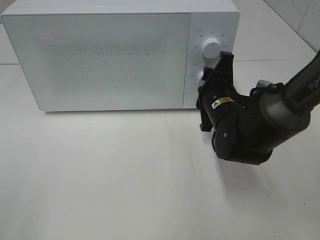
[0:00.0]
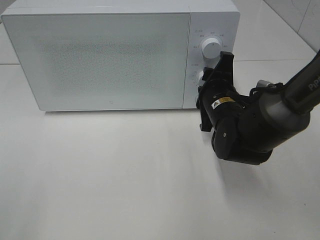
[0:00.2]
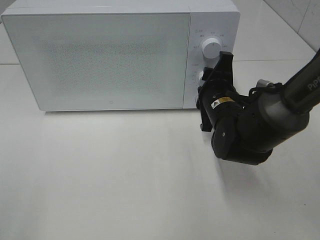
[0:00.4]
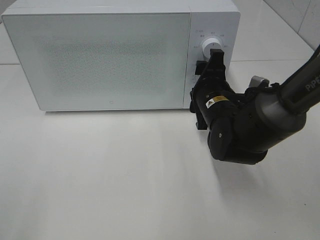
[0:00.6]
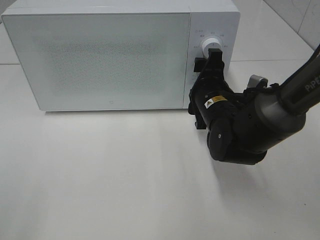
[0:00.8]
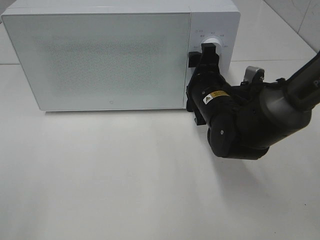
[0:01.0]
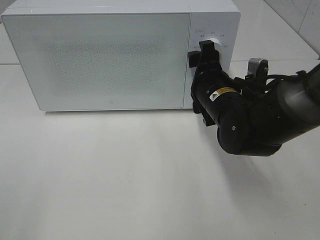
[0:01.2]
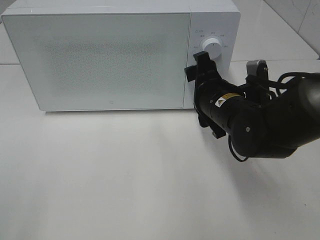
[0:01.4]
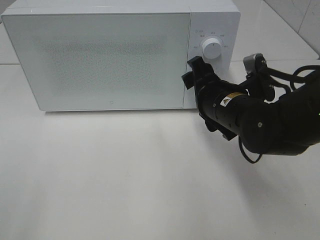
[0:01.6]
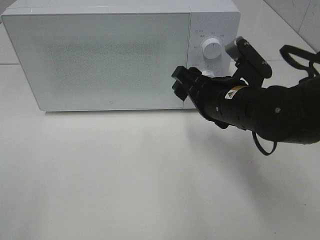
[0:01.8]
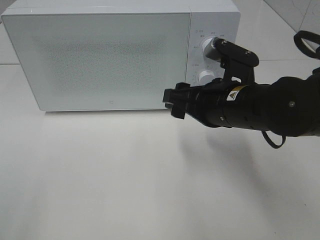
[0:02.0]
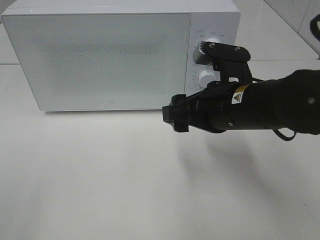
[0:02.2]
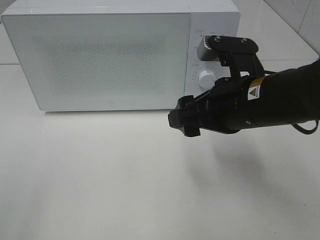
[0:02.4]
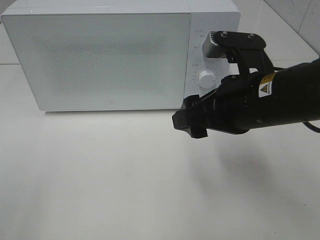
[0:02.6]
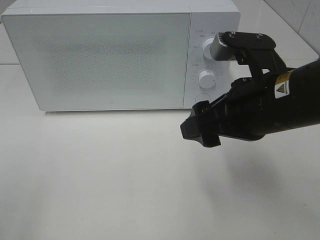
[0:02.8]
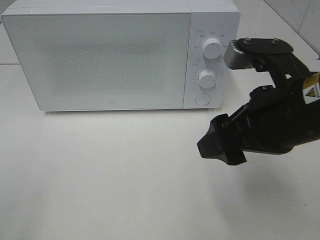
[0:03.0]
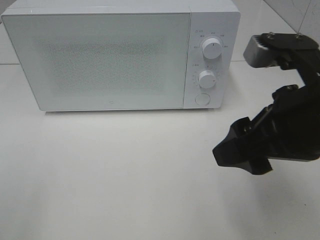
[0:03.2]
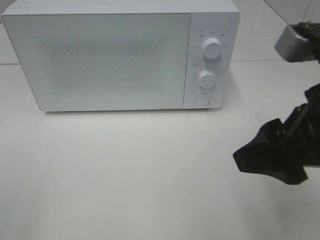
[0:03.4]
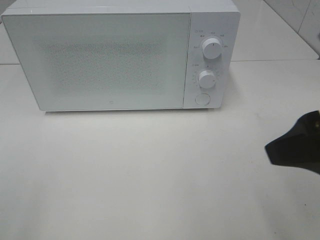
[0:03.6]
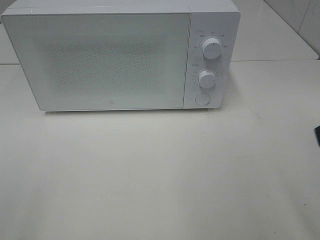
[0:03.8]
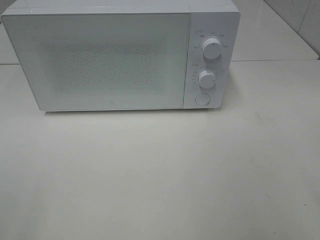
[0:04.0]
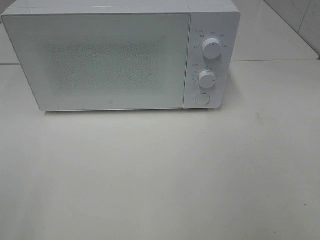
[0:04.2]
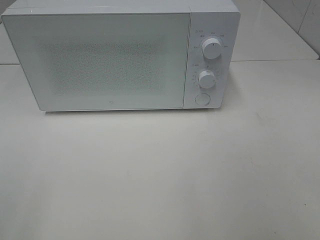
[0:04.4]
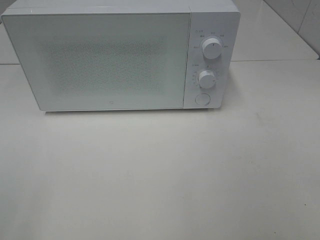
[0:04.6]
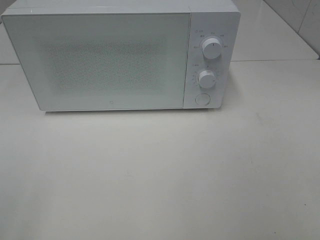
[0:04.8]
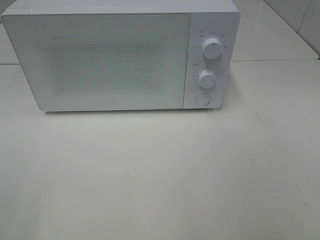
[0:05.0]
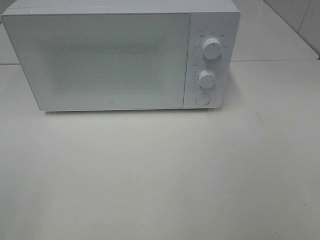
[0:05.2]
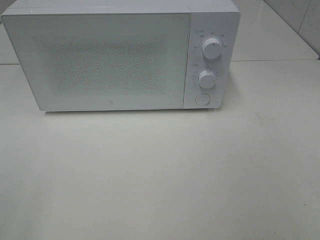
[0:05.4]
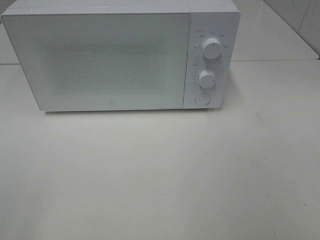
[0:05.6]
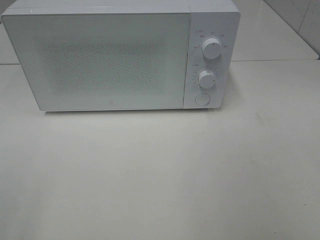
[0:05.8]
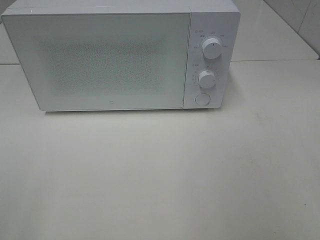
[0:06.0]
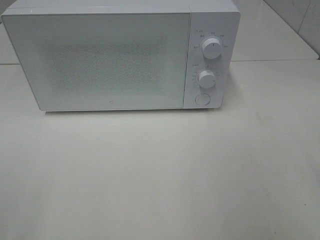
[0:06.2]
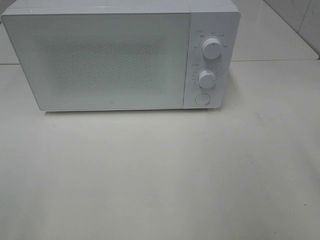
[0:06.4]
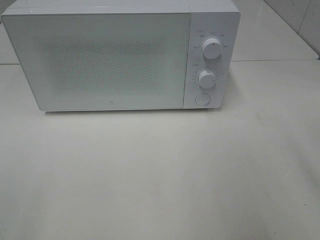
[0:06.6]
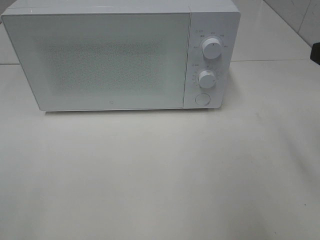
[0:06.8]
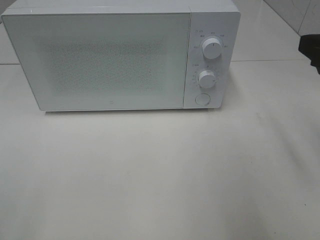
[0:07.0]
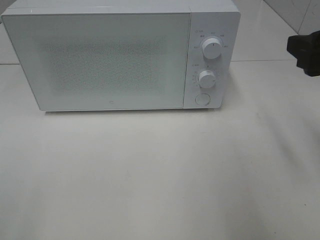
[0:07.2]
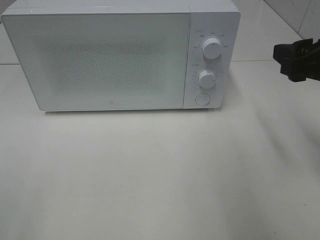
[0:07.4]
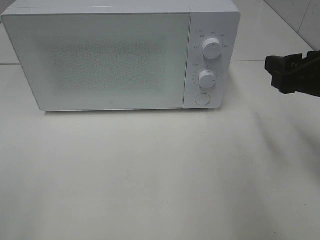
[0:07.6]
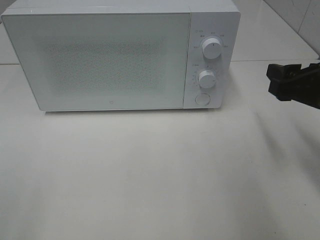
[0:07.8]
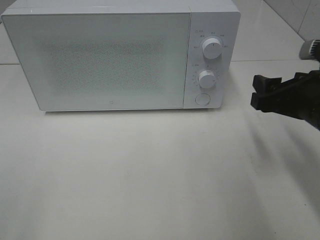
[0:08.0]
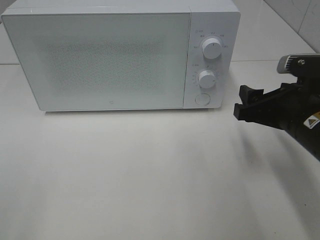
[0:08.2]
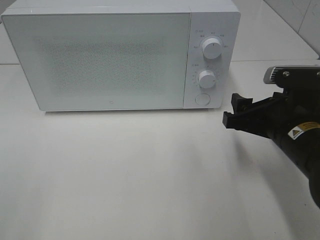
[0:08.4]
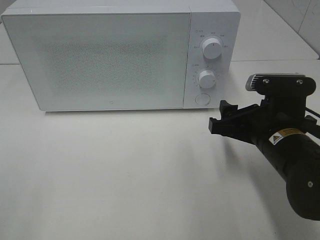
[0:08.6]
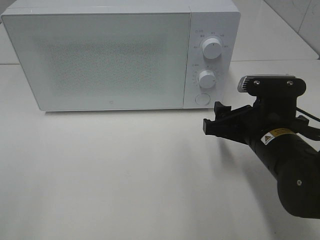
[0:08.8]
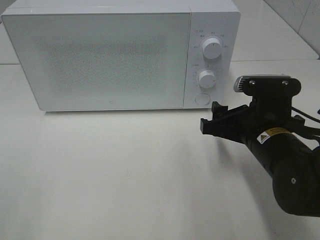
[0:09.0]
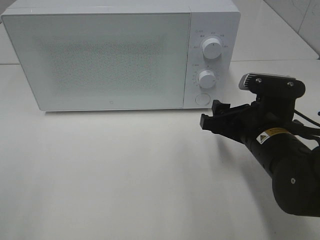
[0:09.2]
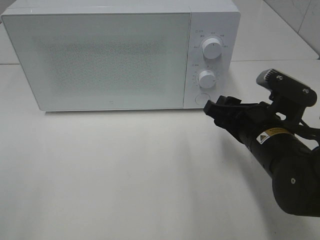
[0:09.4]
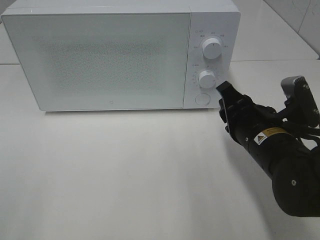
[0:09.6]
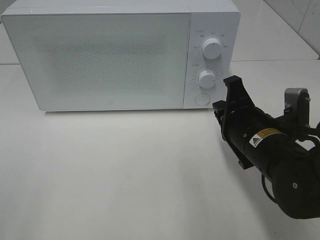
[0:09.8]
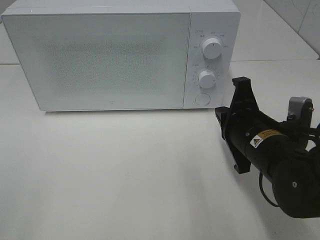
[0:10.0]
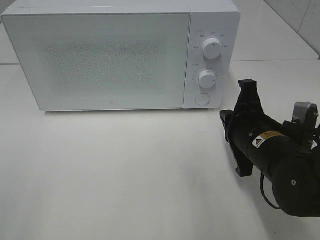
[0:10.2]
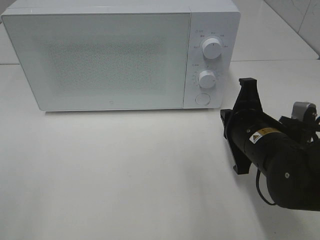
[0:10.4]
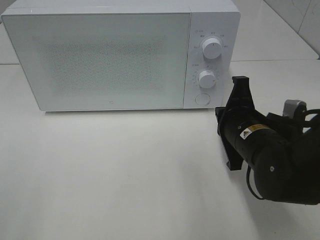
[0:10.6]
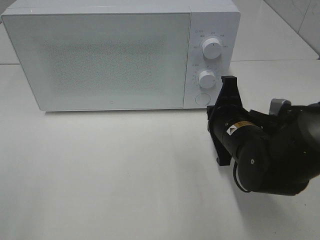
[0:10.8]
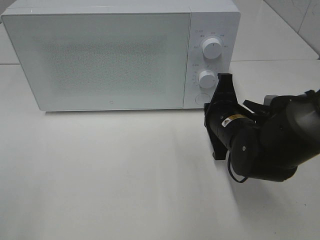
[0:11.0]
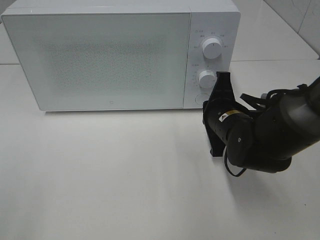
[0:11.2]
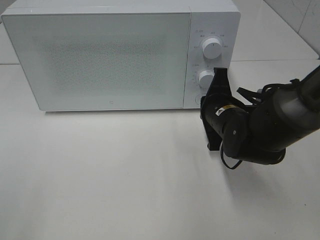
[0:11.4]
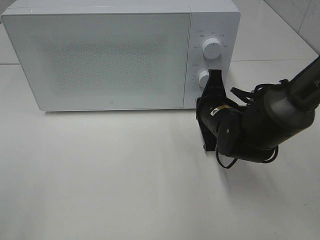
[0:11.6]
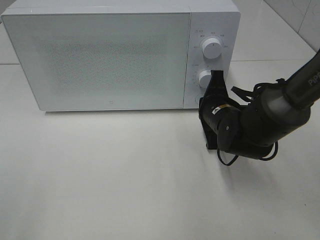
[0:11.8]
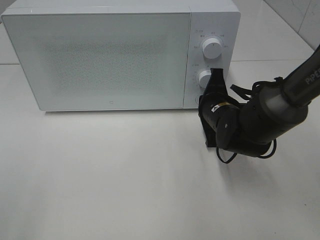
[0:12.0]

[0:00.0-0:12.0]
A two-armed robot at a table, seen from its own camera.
Task of the whole recording: Heat the burger.
0:00.0 to 0:01.6: The right gripper changes place by approximately 5 cm, and opens up.
0:01.6 to 0:03.0: The right gripper goes roughly 15 cm backward and upward.
0:03.0 to 0:04.4: The right gripper moves backward and to the right, roughly 20 cm.
0:06.0 to 0:07.6: The right gripper shifts approximately 20 cm forward and downward.
0:07.6 to 0:09.0: The right gripper is displaced downward and to the left by about 15 cm.
0:09.0 to 0:10.4: The right gripper closes up.
0:10.4 to 0:12.0: The right gripper travels forward by roughly 10 cm.

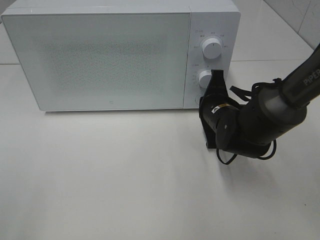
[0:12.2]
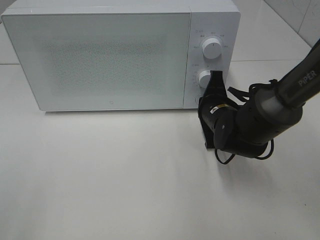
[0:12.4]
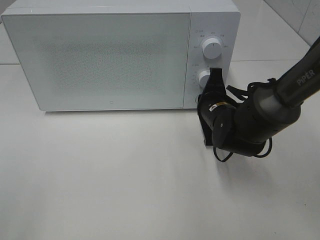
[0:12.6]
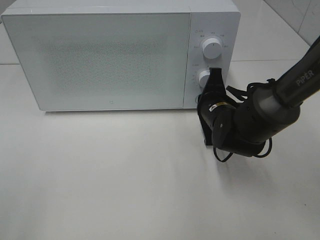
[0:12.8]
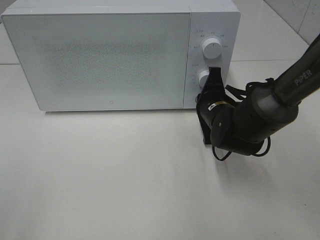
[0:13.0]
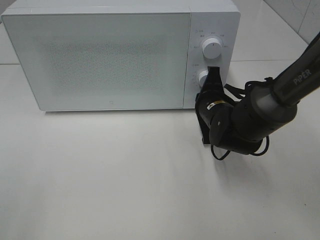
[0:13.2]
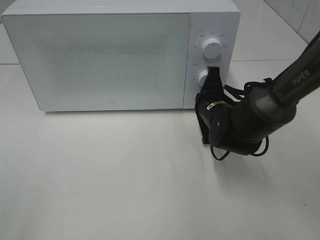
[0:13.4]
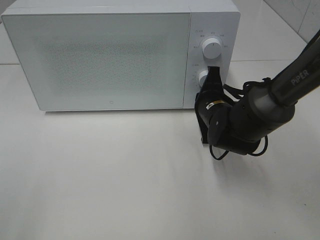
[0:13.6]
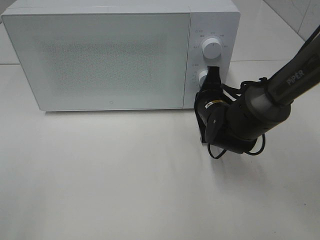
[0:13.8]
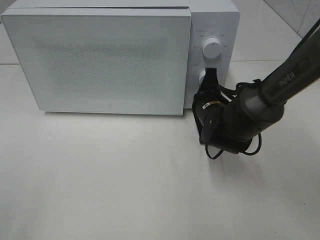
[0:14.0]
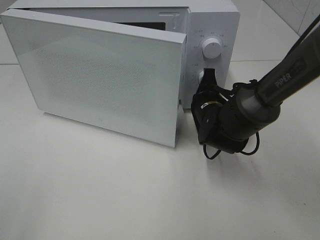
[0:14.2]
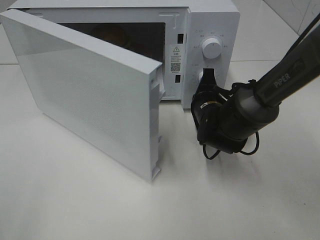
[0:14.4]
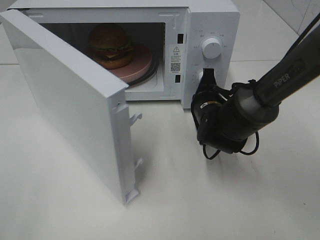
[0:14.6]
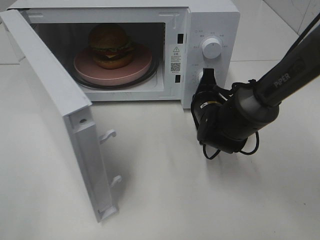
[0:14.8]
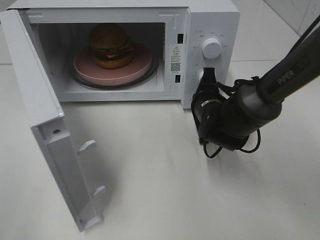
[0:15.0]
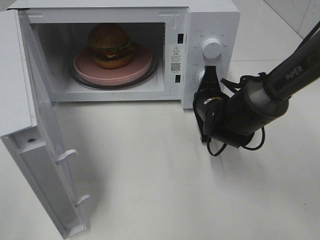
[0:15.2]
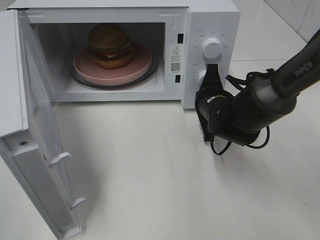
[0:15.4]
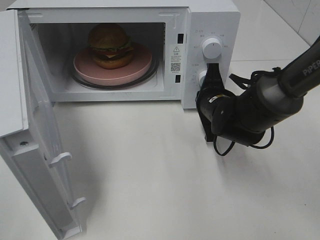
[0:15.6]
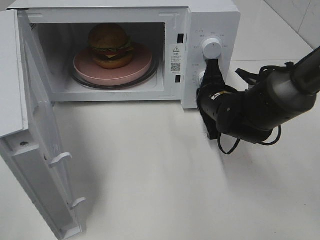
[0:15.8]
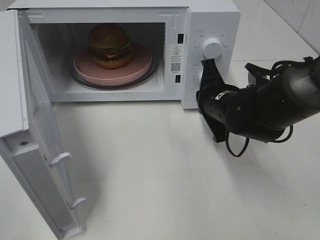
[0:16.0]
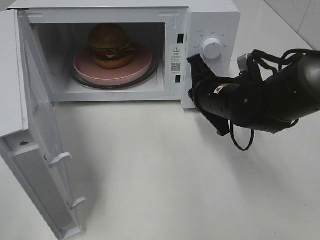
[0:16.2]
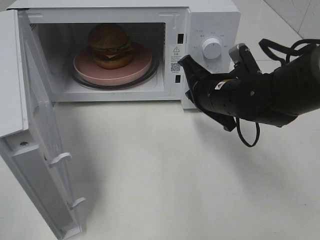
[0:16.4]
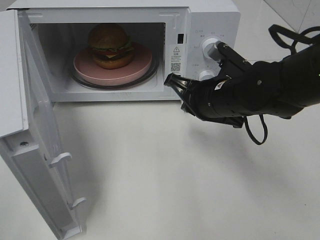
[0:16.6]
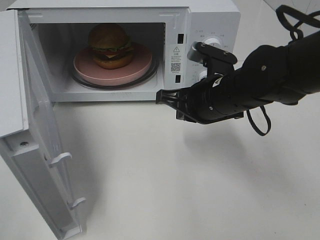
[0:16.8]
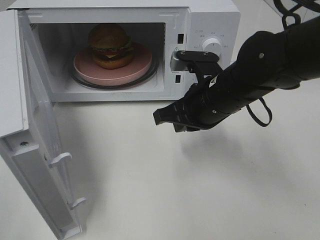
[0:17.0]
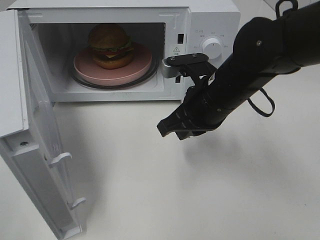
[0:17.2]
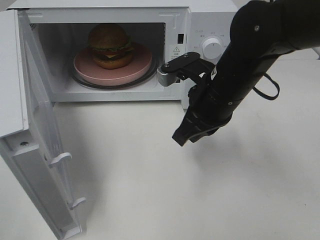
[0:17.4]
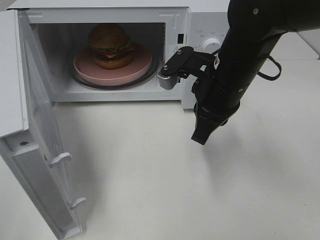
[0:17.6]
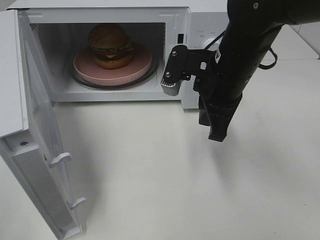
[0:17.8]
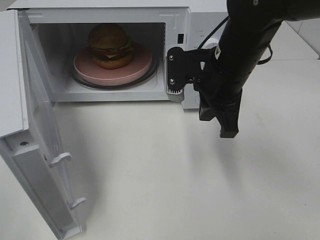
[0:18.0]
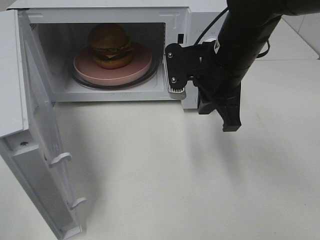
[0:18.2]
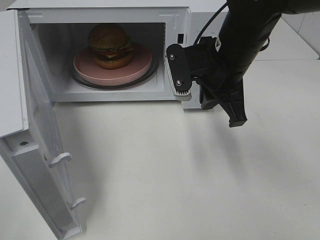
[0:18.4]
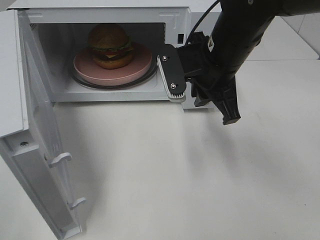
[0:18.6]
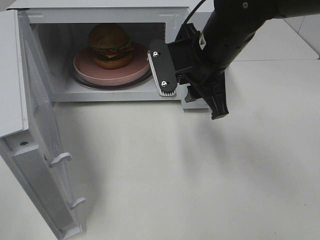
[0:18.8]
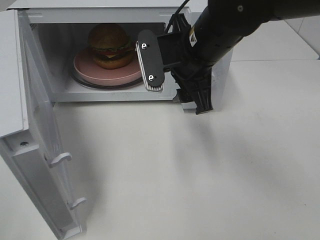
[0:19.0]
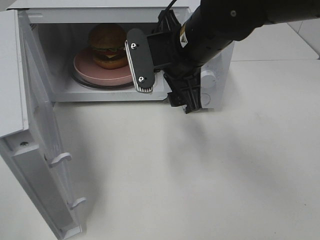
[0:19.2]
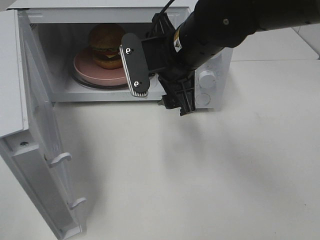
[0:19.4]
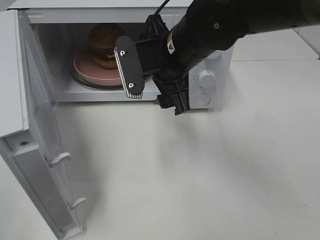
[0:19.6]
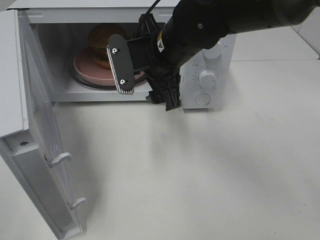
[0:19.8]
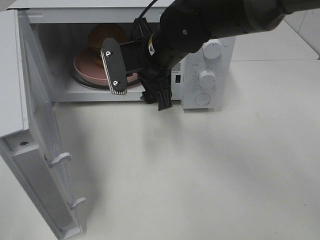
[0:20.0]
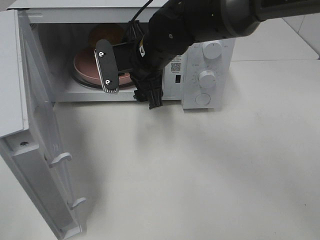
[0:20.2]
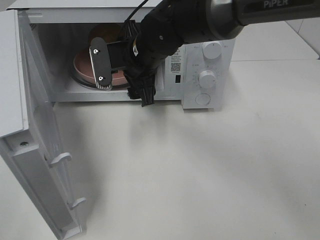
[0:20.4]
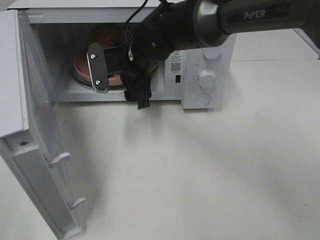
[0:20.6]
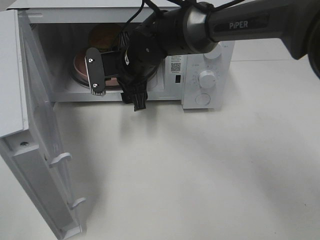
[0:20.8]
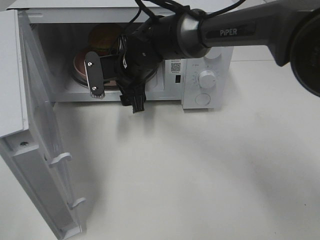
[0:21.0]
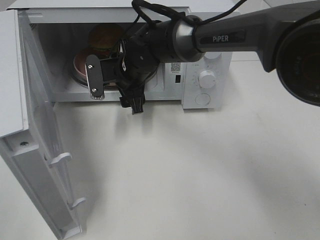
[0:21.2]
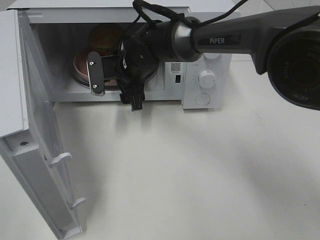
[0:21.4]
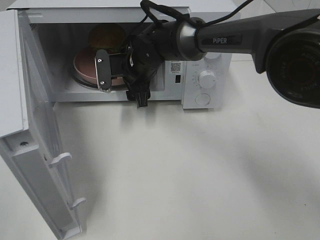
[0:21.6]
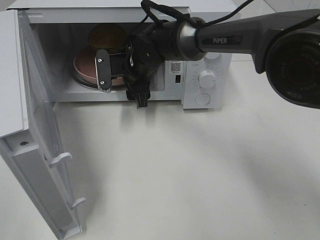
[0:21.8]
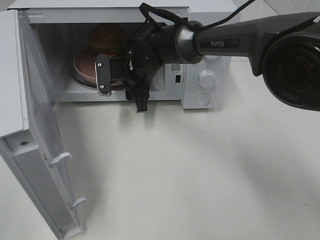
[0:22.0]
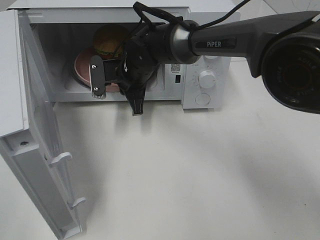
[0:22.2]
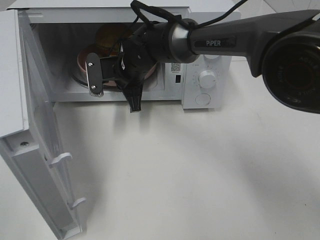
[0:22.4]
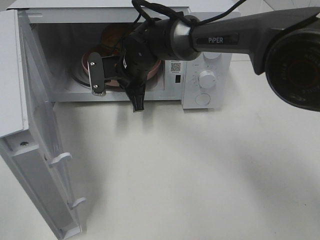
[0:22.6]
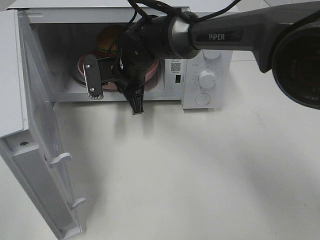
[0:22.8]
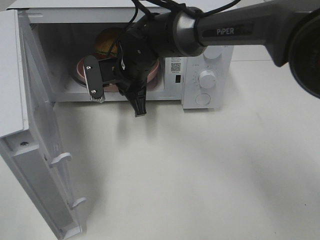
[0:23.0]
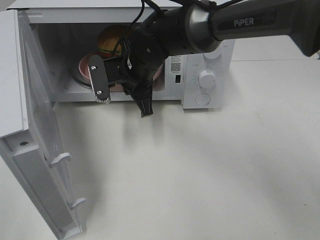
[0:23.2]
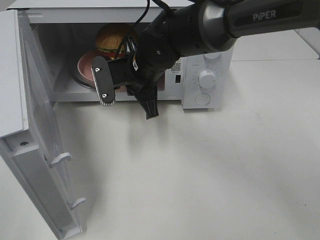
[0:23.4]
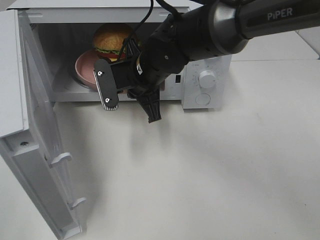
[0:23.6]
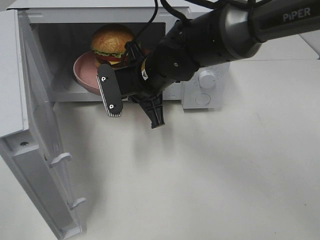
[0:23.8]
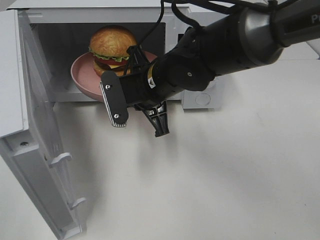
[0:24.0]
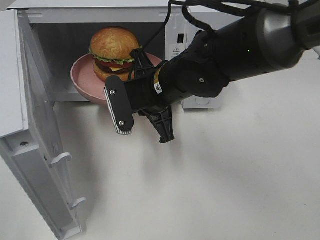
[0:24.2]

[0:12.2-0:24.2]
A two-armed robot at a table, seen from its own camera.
Task of the whole recording: Heat the burger.
Step, 0:12.2 to 0:15.6: Right hand: press the switch.
Step, 0:15.8 to 0:22.2: Right hand: grab the plate with the hamburger.
0:12.2 to 0:13.8: The grippers make only small movements.
0:15.2 to 0:16.6: The right gripper goes approximately 10 cm upward and backward.
0:16.6 to 0:18.2: The right gripper shifts roughly 5 cm upward.
0:18.2 to 0:19.8: The right gripper moves to the left, some 10 cm, and opens its fingers.
0:19.8 to 0:21.2: The right gripper is displaced downward, forward and to the left by roughly 15 cm.
0:21.2 to 0:22.6: The right gripper closes.
0:22.6 to 0:24.2: The right gripper goes some 15 cm backward and to the right.
